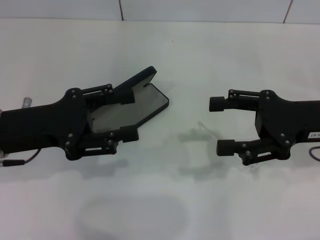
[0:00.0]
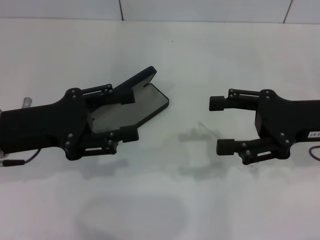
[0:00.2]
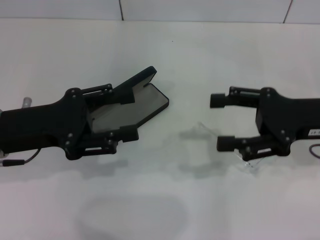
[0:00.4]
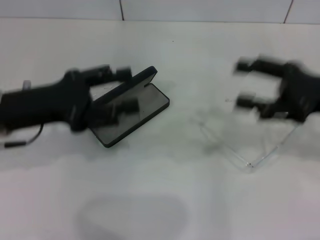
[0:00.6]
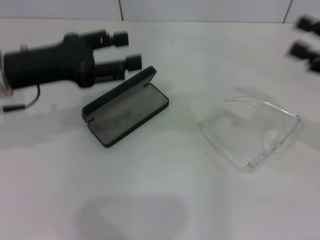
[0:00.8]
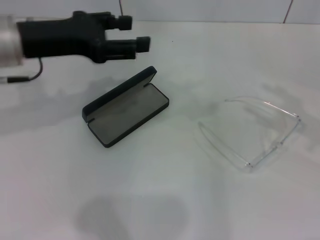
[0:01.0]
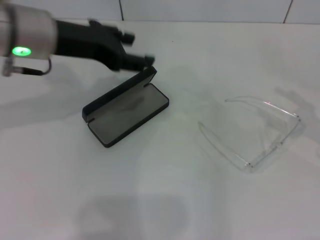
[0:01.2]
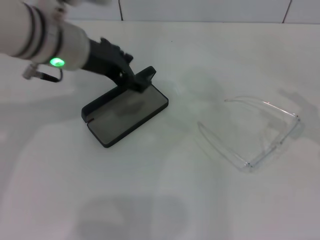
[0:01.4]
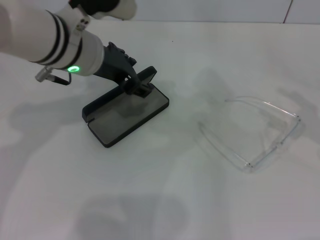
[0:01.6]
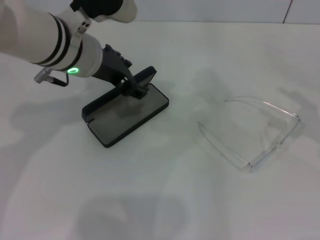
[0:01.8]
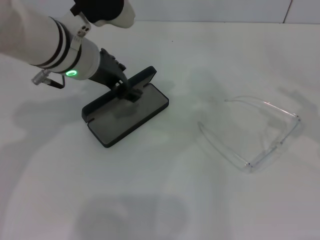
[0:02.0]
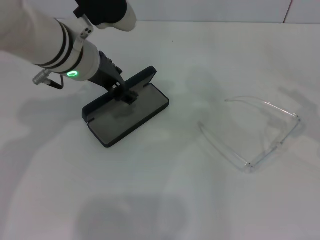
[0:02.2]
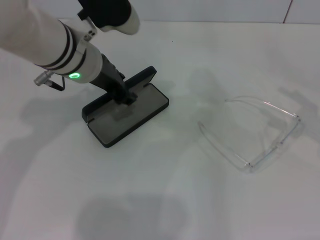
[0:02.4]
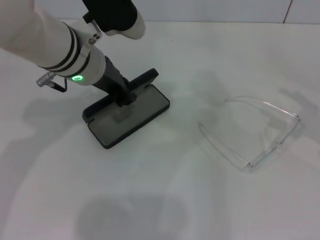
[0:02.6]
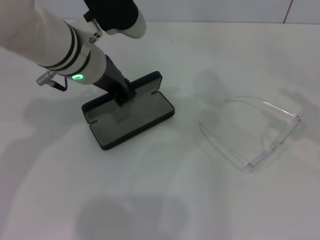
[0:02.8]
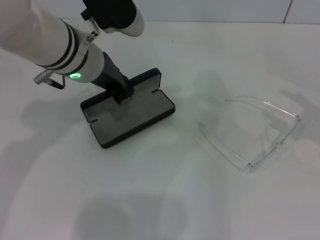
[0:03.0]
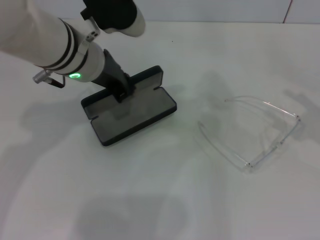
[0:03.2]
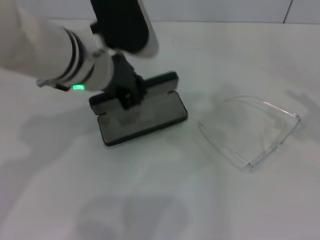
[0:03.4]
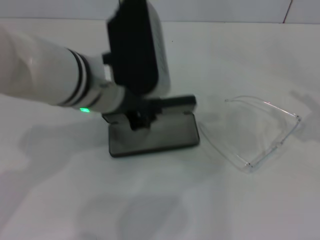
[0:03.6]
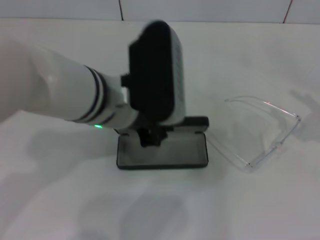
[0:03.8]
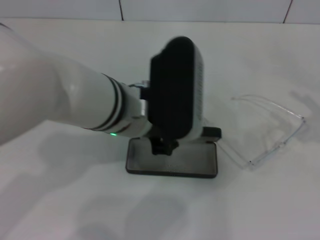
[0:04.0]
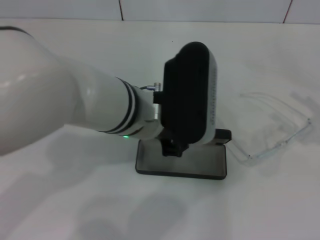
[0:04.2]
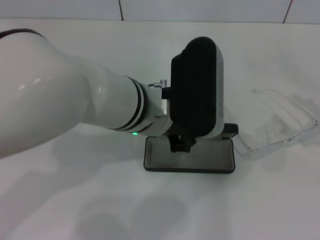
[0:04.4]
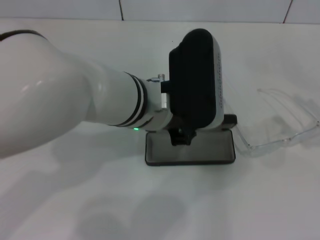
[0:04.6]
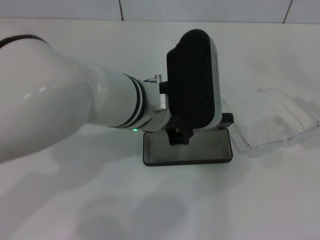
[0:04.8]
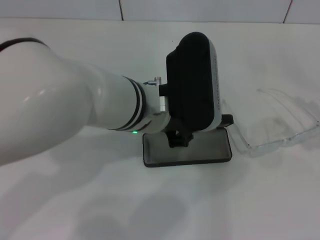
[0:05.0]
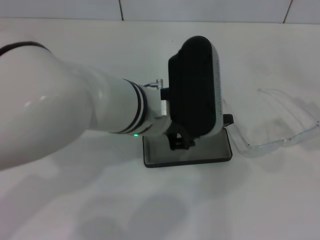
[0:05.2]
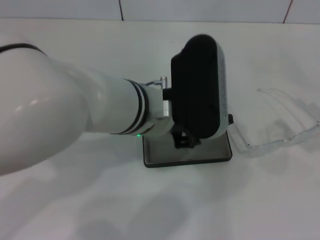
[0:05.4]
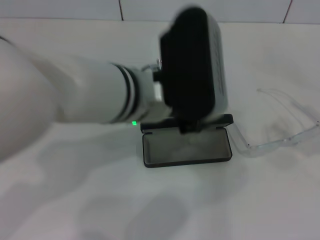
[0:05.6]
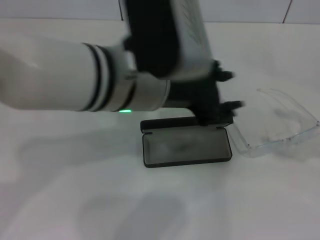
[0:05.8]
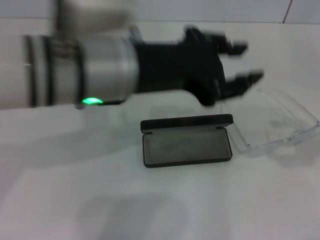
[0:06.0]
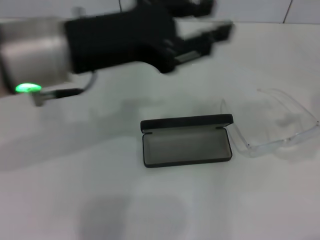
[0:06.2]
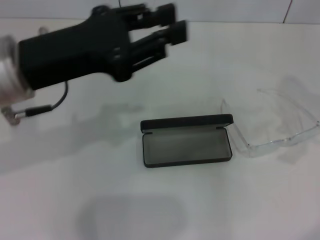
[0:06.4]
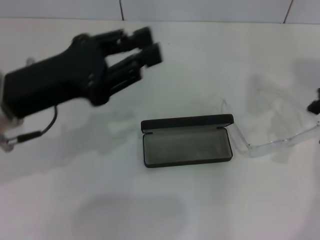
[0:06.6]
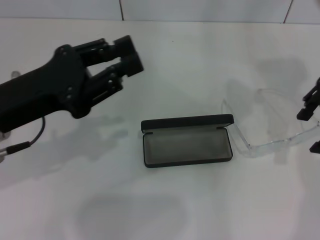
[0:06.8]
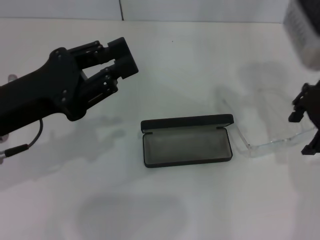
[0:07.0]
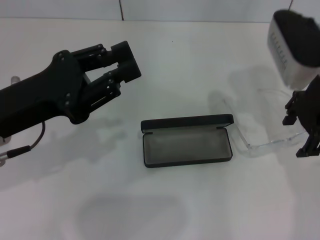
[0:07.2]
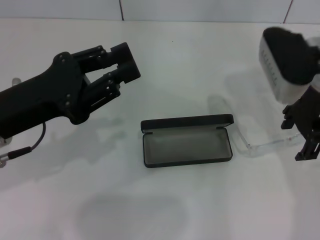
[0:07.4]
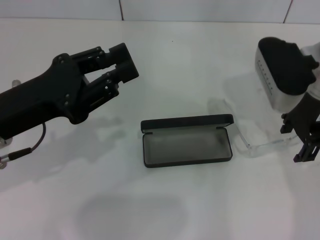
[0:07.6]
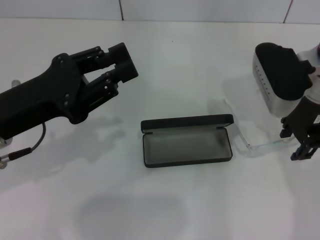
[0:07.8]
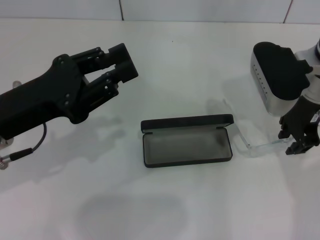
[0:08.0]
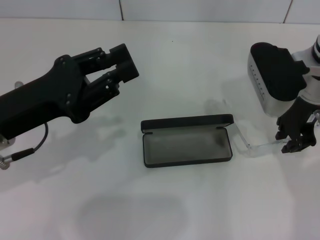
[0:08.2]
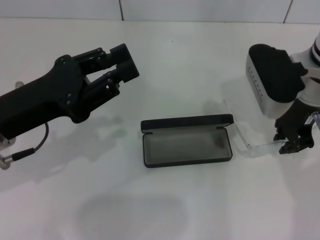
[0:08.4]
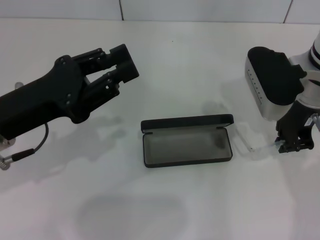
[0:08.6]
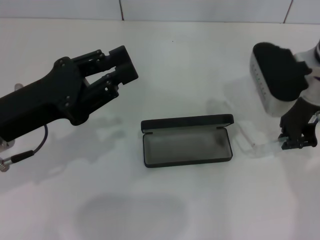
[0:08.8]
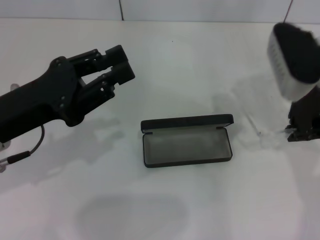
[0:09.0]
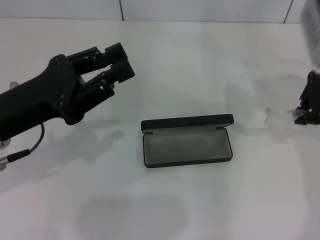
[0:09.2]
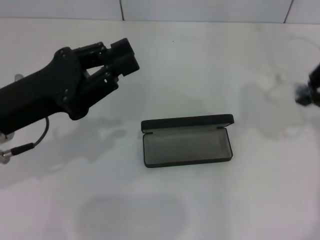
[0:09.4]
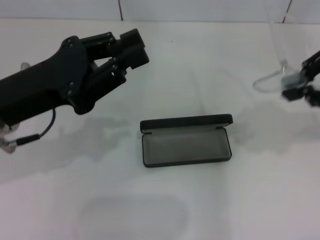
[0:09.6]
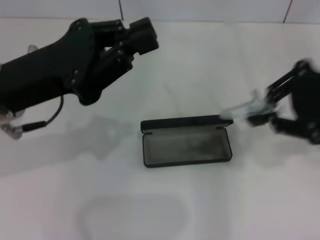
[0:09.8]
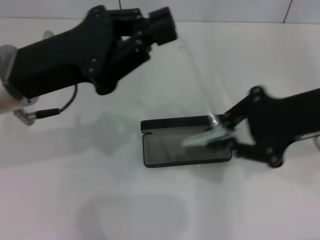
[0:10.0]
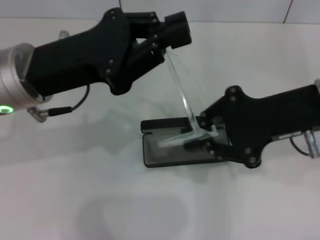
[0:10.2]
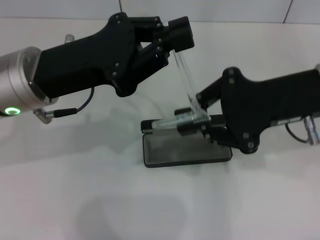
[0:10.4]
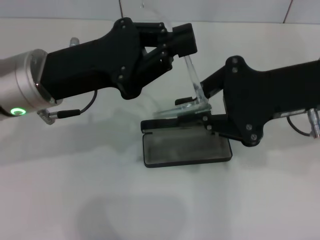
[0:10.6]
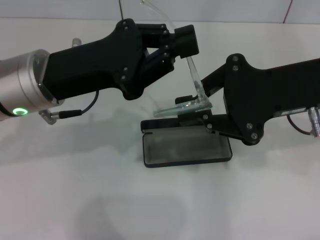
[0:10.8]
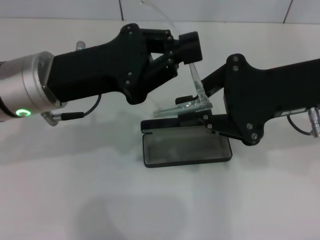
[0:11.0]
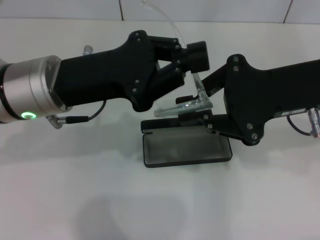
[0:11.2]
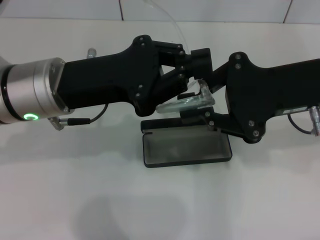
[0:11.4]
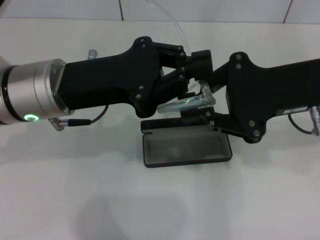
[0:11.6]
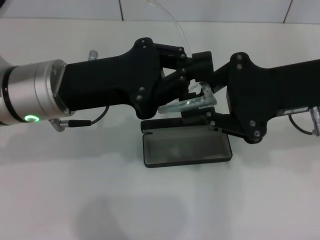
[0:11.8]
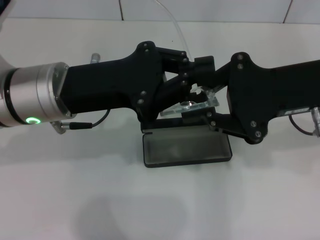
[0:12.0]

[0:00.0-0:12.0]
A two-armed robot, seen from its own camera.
Step, 0:00.0 to 0:02.6: Grab the glasses case with your left hand.
Step, 0:02.8 to 0:05.0: Place the glasses case in the center of the table with your left hand.
Step, 0:05.2 to 0:08.6: Grab the eyeglass frame with your right hand.
0:00.0 to 0:01.6: The right gripper travels to the right by roughly 15 cm, while the left gripper heads to the right, forward and upward, covering some 15 cm.
0:01.6 to 0:03.0: The left gripper closes.
0:03.0 to 0:04.4: The left gripper moves to the right and backward, approximately 10 cm.
0:04.4 to 0:06.0: The left gripper goes about 10 cm upward and to the left, and opens. The right gripper goes approximately 10 cm upward.
0:06.0 to 0:07.6: The right gripper heads to the left and forward, covering about 25 cm. Meanwhile the left gripper travels to the left and downward by roughly 15 cm.
0:07.6 to 0:09.0: The right gripper closes its fingers.
0:09.0 to 0:10.4: The right gripper is displaced backward by roughly 10 cm, and travels upward and back again, about 10 cm each way, while the left gripper shifts some 5 cm to the right.

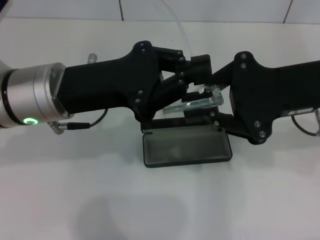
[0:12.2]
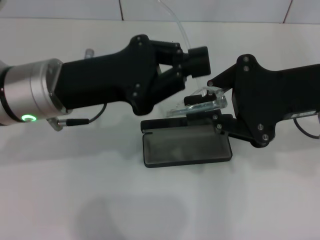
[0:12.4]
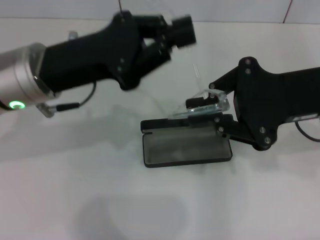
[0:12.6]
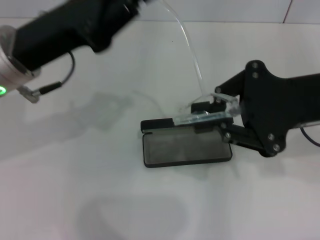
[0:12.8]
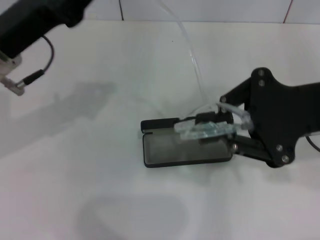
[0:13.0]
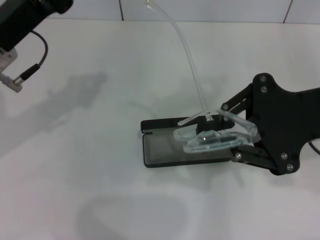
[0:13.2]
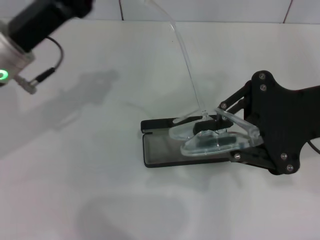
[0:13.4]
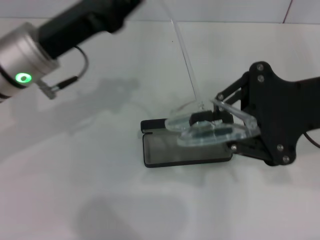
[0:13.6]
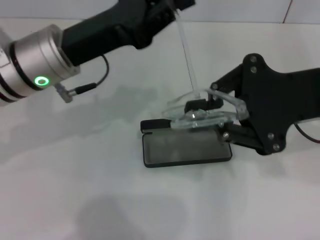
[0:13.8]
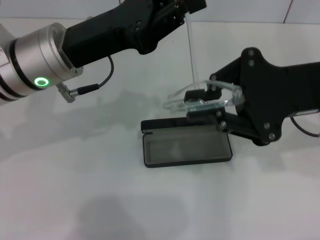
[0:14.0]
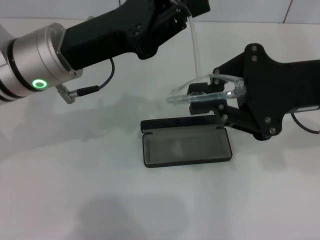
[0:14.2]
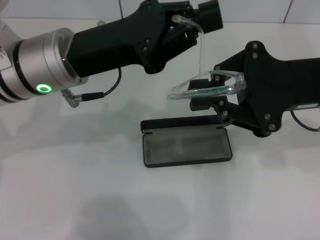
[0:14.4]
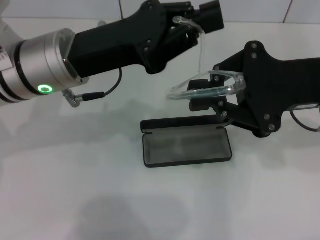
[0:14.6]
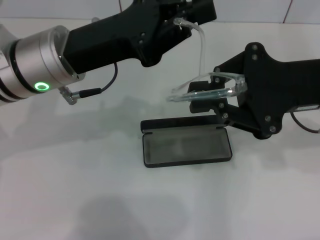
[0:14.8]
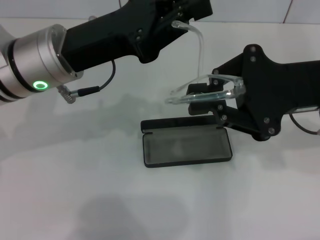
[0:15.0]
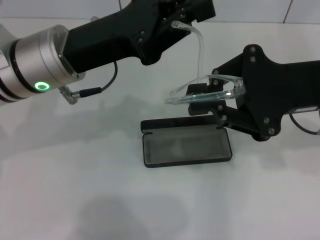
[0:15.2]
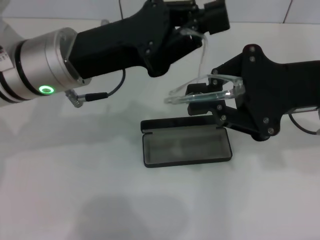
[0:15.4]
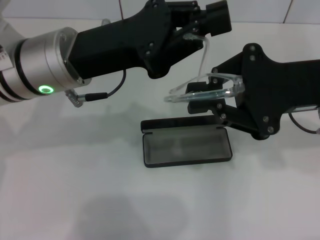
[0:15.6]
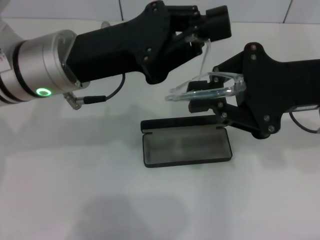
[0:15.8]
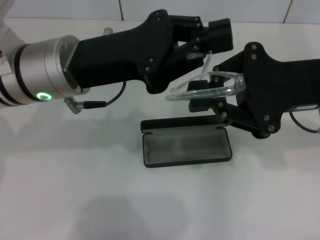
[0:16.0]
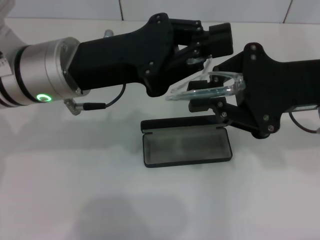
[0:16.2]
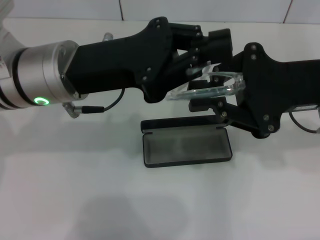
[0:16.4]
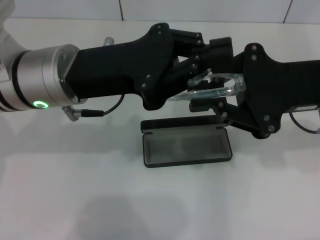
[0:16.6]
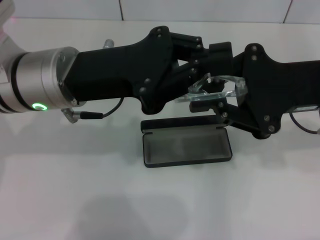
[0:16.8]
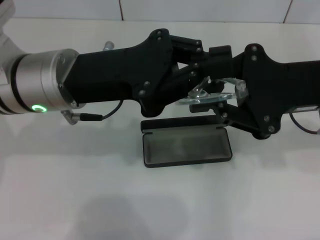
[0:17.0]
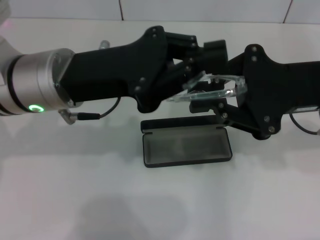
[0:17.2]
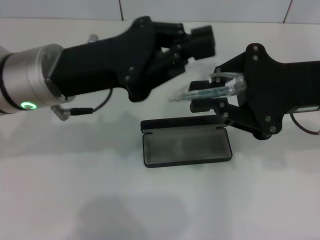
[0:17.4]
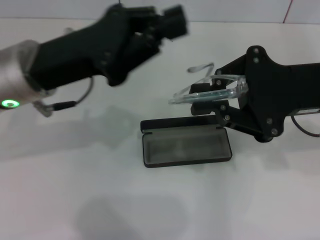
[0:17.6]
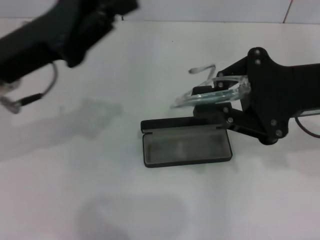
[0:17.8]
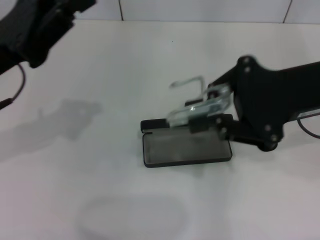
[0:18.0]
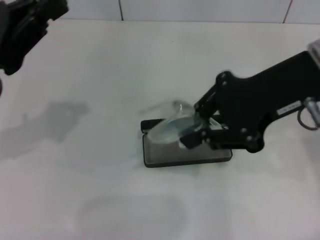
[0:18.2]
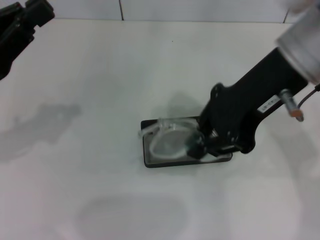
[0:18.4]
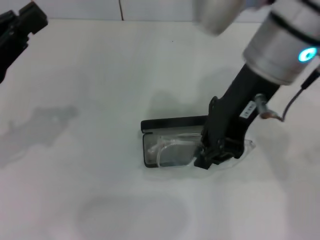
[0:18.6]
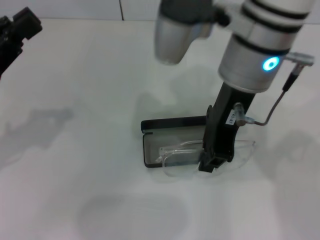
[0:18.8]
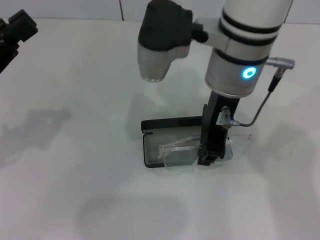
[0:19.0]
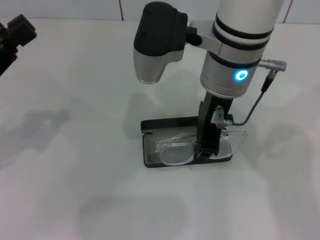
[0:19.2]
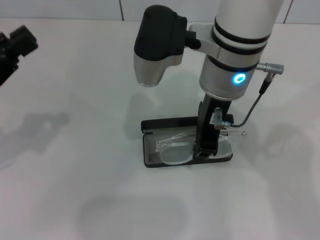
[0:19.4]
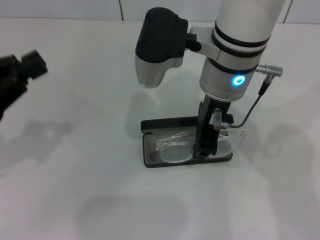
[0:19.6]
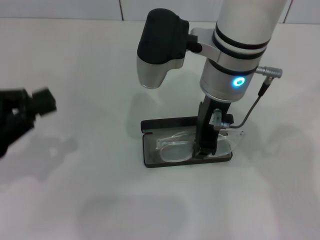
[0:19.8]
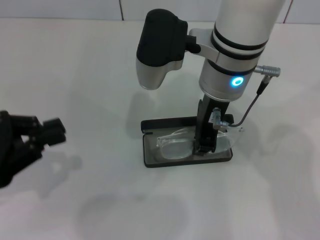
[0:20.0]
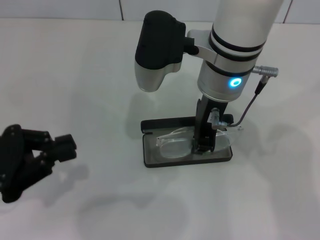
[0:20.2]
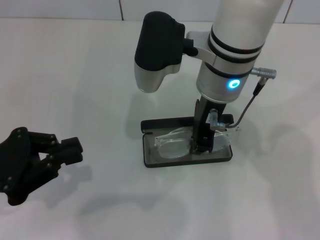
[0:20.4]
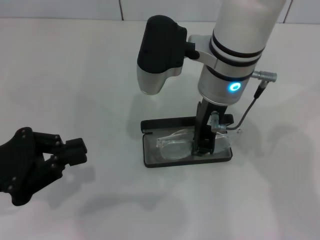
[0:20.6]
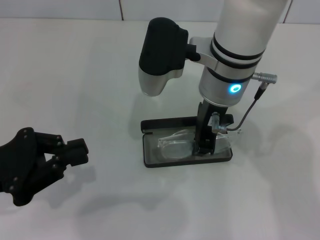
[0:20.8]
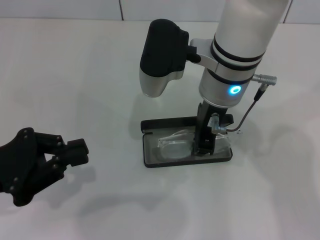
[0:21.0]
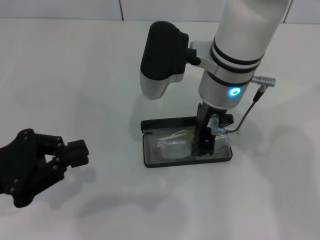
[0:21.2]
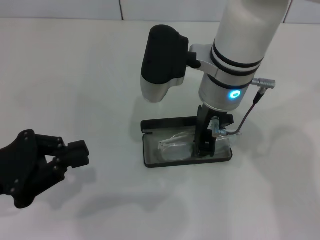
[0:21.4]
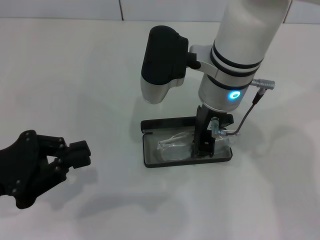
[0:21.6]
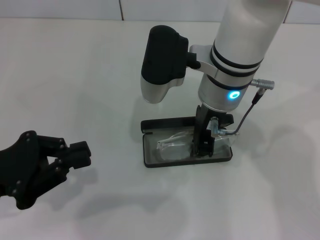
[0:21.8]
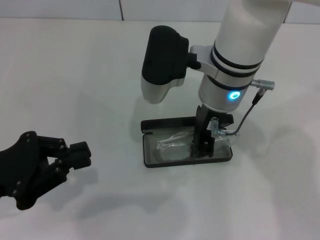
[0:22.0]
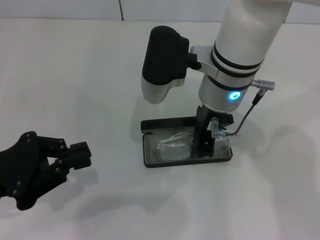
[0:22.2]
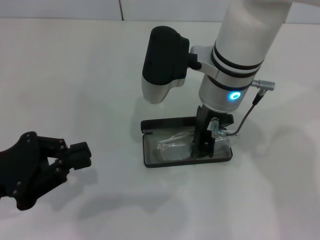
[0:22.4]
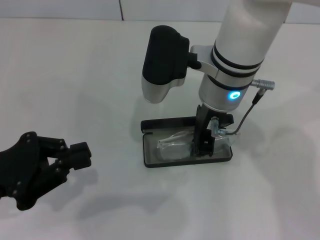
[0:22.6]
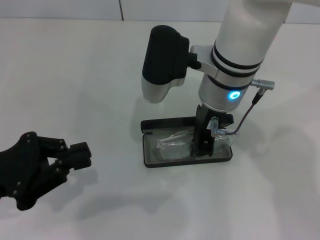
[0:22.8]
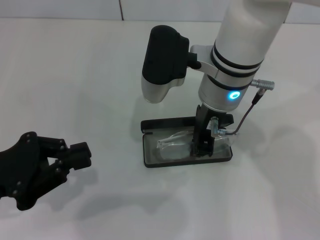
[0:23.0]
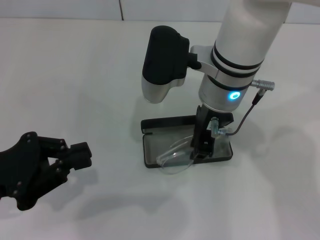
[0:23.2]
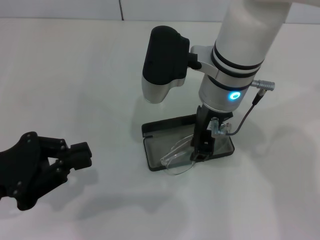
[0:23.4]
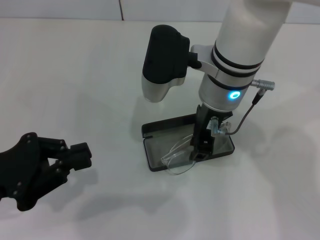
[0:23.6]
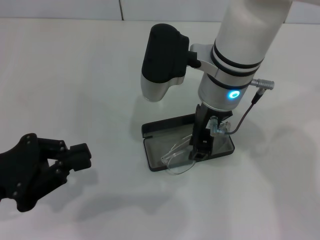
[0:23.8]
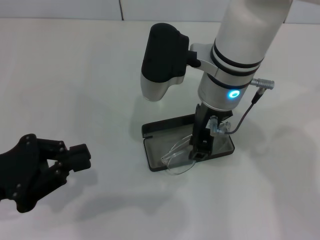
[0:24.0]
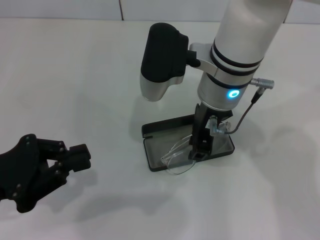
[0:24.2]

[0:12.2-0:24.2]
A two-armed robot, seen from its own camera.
Step, 0:12.2 to 0:17.0: Fold the frame with your left hand.
0:13.8 to 0:15.2: The grippers make only small movements.
0:16.6 to 0:18.2: The left gripper is displaced to the left by approximately 15 cm; the right gripper travels upward by about 5 cm.
0:18.2 to 0:19.8: The right gripper travels to the left by roughly 15 cm, while the left gripper changes place by roughly 5 cm.
0:19.8 to 0:21.2: The grippers make only small movements.
0:21.2 to 0:24.2: Both grippers stay about where they are.
